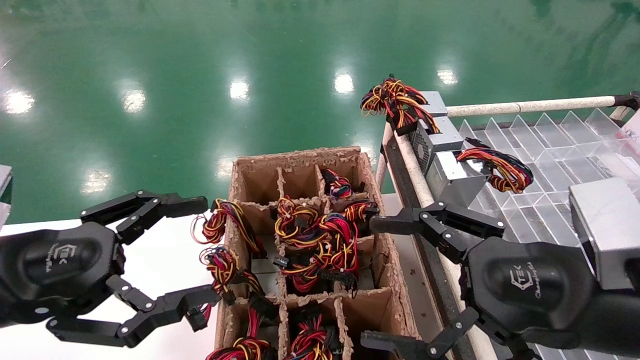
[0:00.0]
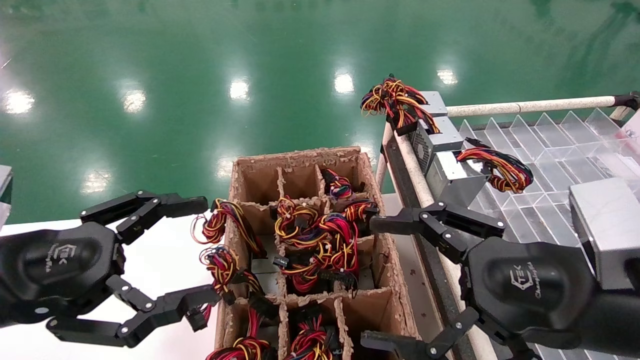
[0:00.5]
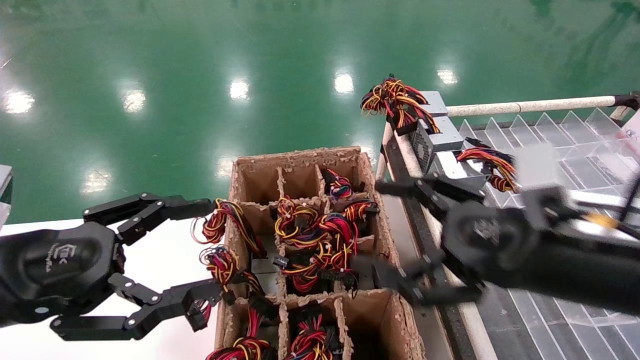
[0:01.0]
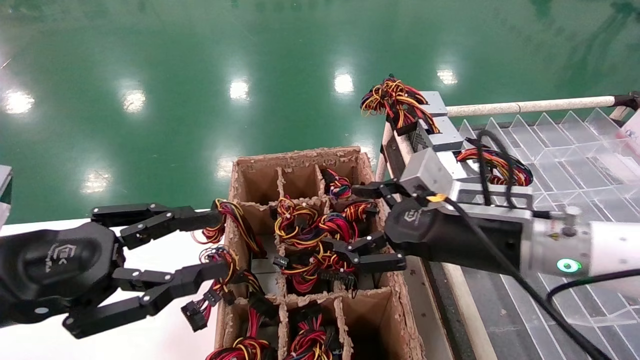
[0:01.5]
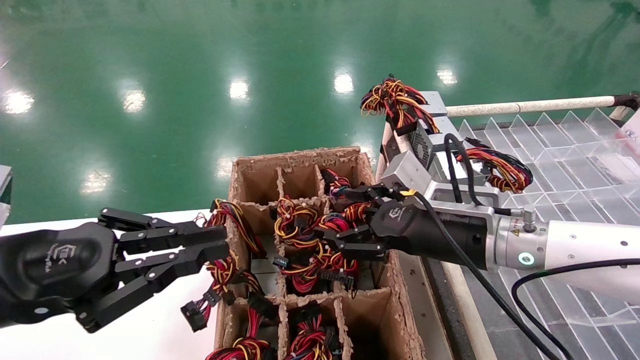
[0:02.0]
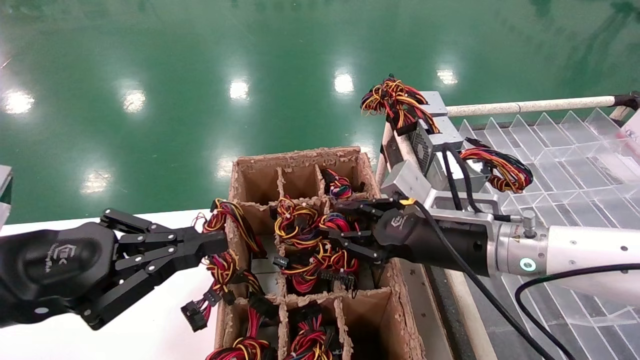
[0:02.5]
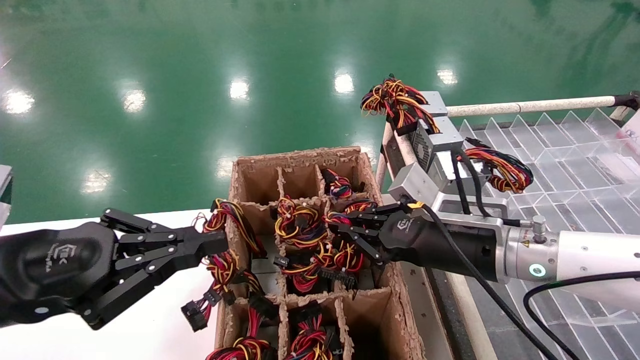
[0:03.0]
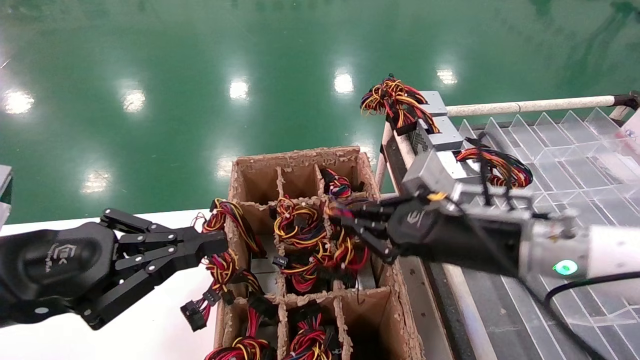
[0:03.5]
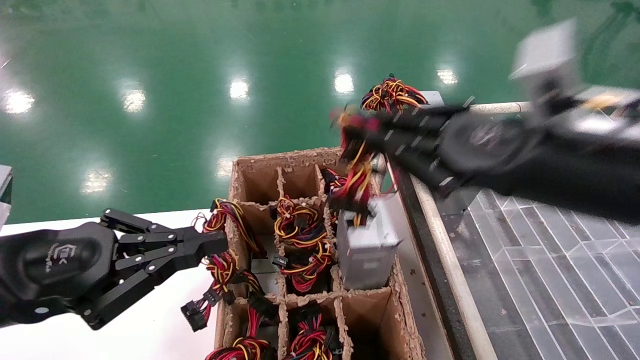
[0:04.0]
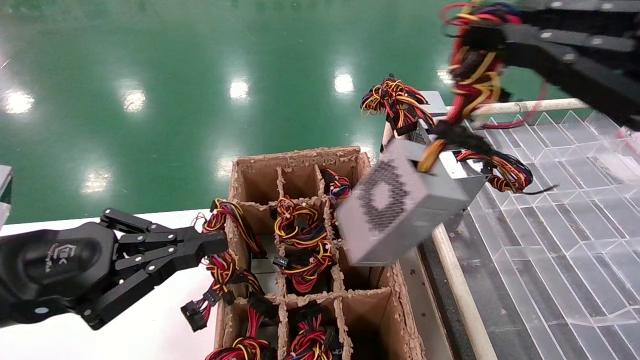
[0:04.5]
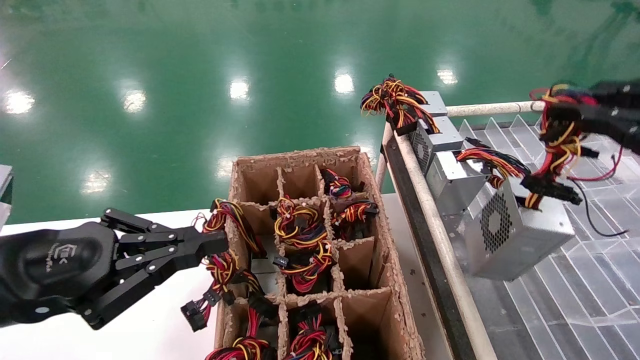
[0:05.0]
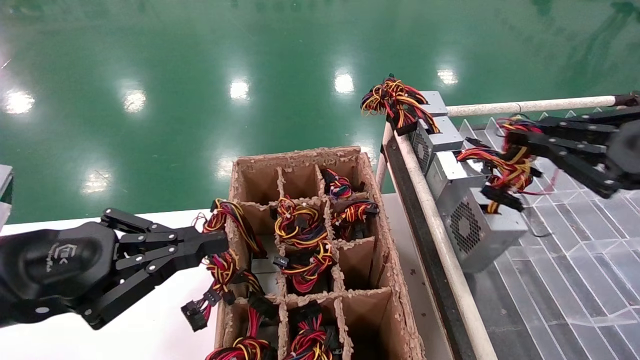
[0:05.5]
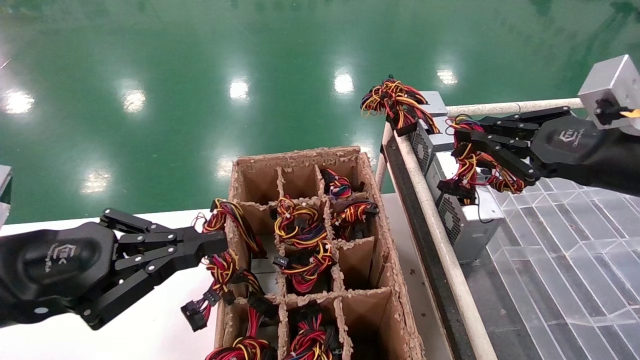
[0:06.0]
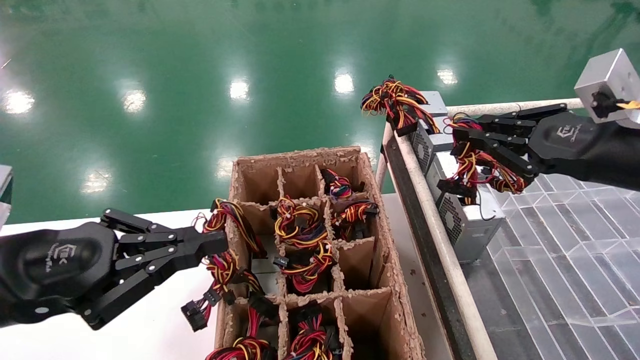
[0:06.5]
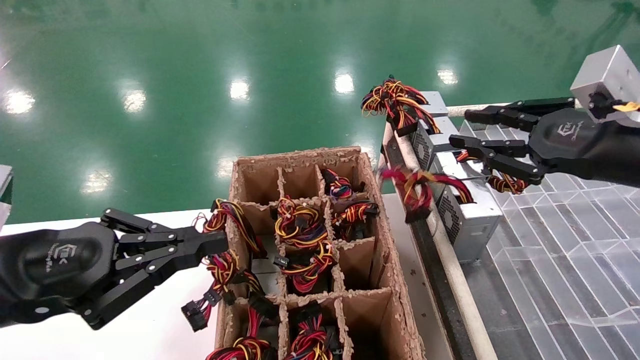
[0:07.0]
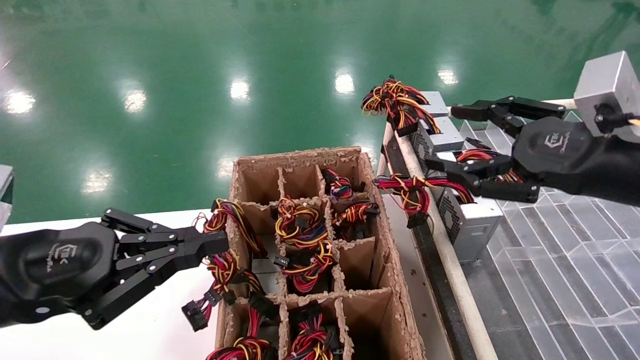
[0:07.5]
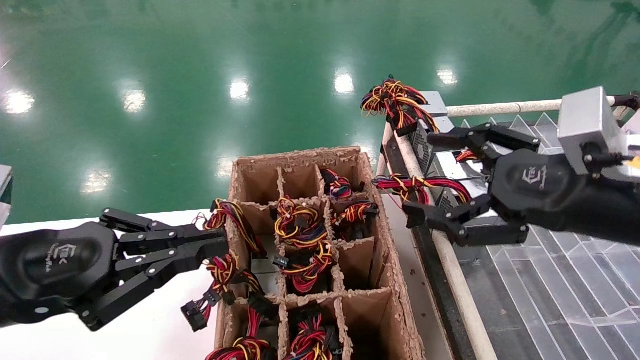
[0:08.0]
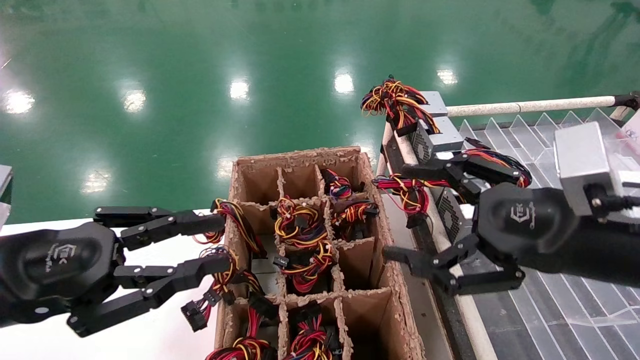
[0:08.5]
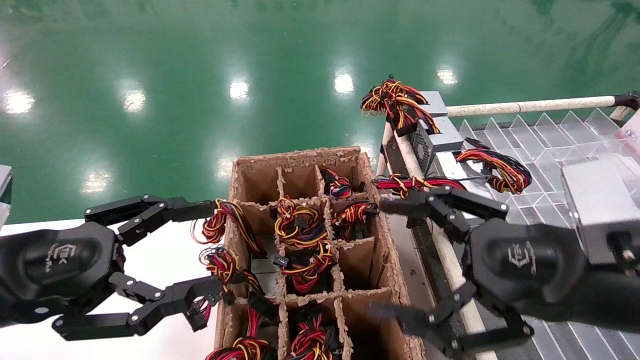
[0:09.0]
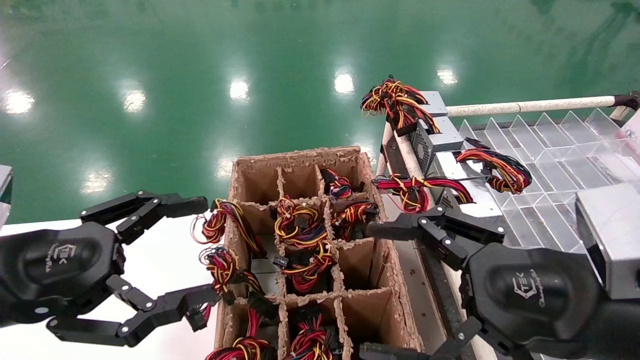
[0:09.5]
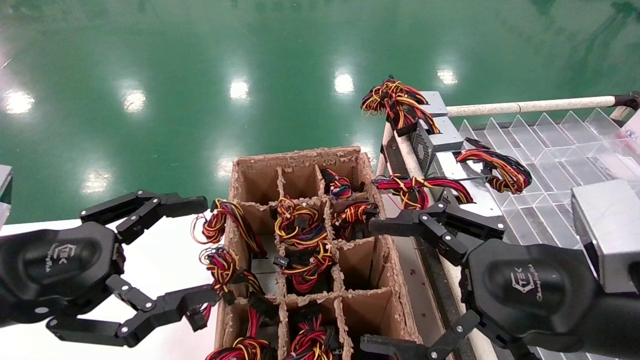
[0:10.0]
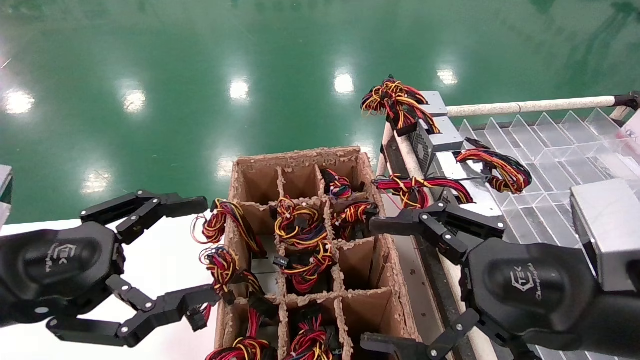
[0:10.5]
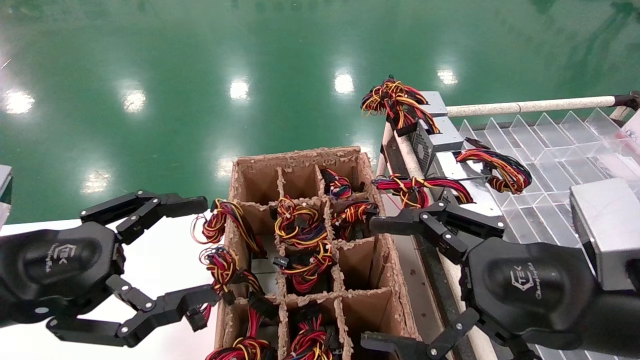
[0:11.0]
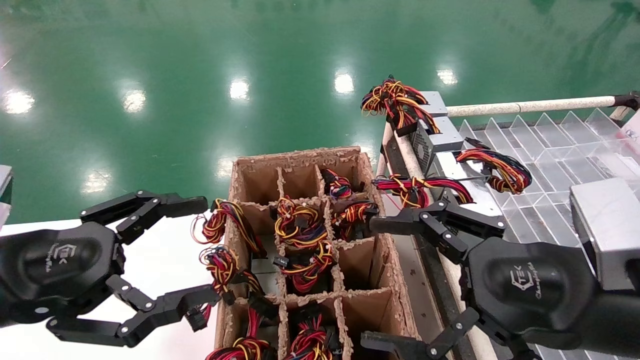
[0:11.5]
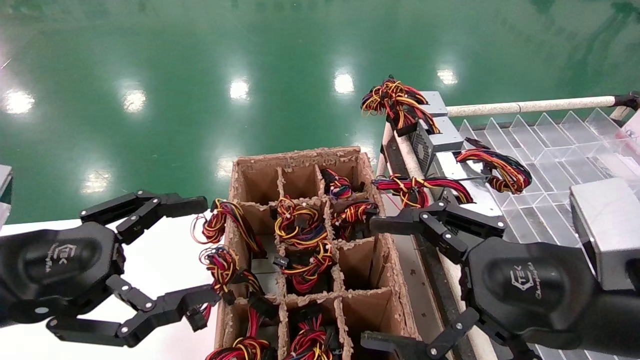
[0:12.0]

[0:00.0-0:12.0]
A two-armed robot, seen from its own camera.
Step, 0:01.5 to 0:03.0: Grab the main unit power supply from the containment box.
Step, 0:03.5 to 0:07.0: Place the main unit power supply in the designated area.
0:00.0 to 0:02.0: The left gripper closes; the right gripper shifts approximately 15 cm forward and to the left.
0:02.0 to 0:04.0: The right gripper is displaced upward, backward and to the right by about 15 cm, and closes its fingers.
0:04.0 to 0:06.0: The right gripper shifts some 10 cm to the right.
0:06.0 to 0:08.0: The right gripper moves to the left, approximately 5 cm, and opens.
0:08.0 to 0:10.0: The right gripper goes approximately 5 cm downward, while the left gripper opens its fingers.
0:10.0 to 0:12.0: Both grippers stay put.

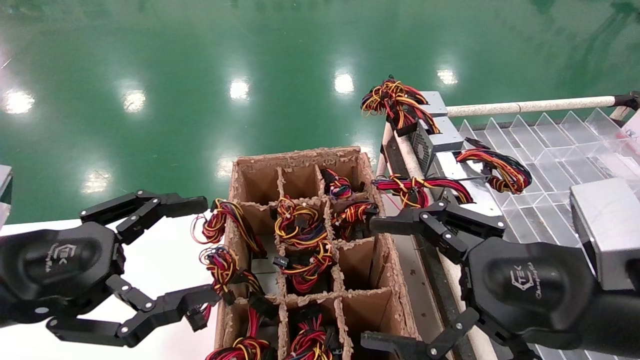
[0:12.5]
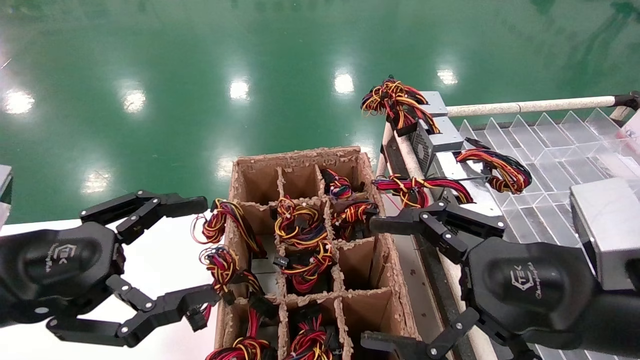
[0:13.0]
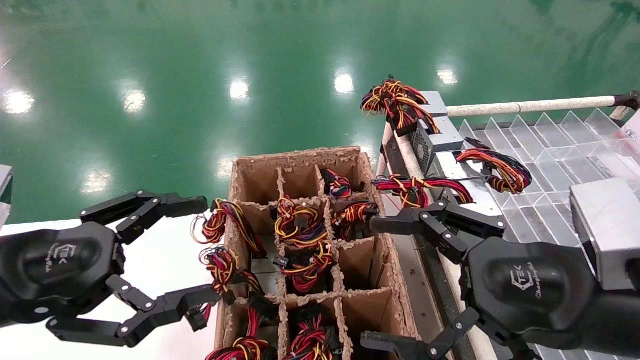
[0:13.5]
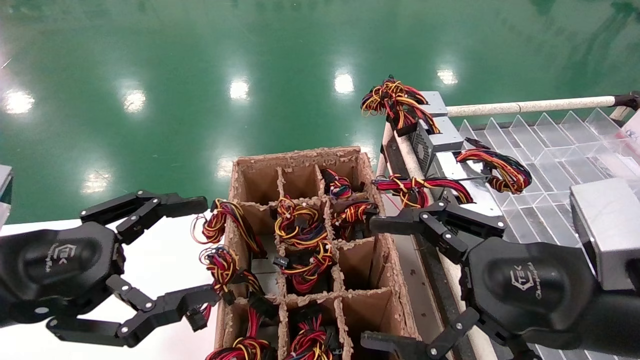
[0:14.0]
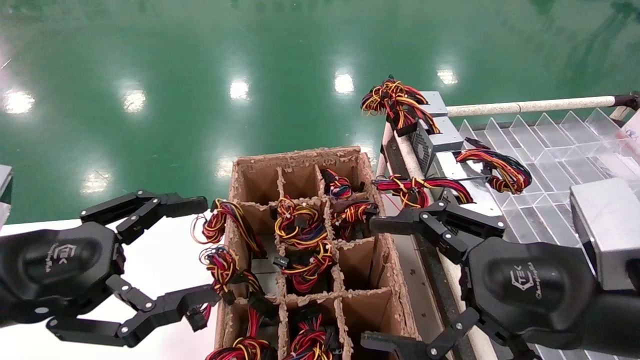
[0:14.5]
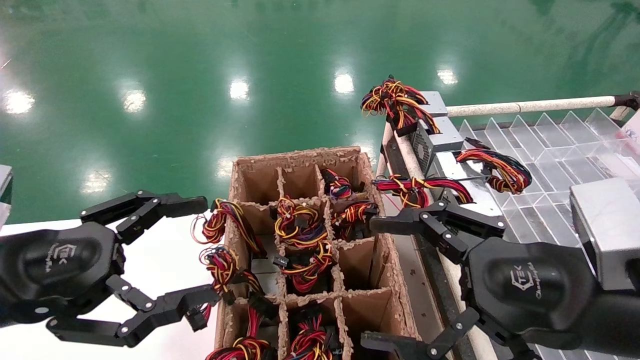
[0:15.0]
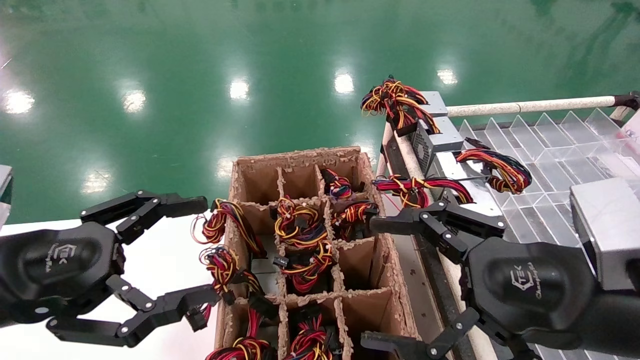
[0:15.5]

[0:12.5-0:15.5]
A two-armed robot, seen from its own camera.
0:12.5 to 0:15.5: Neither gripper changes place.
